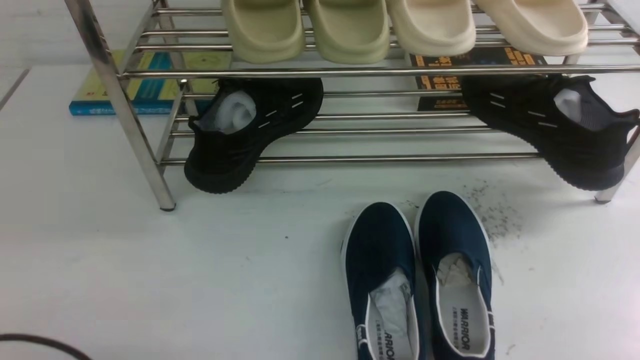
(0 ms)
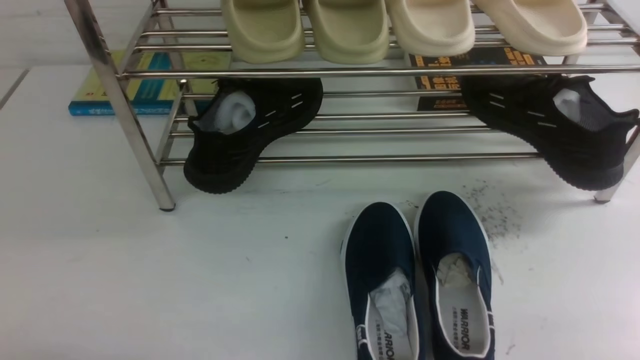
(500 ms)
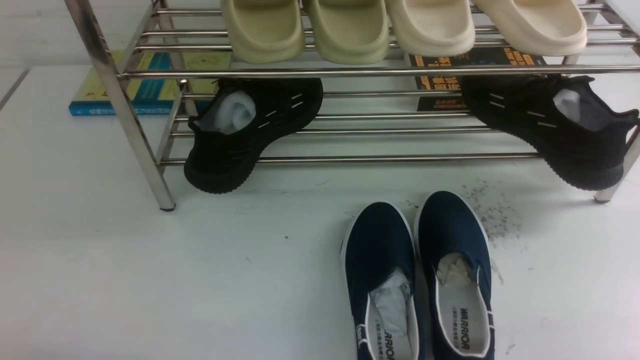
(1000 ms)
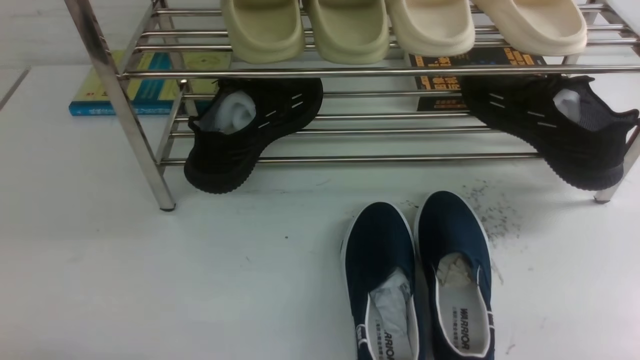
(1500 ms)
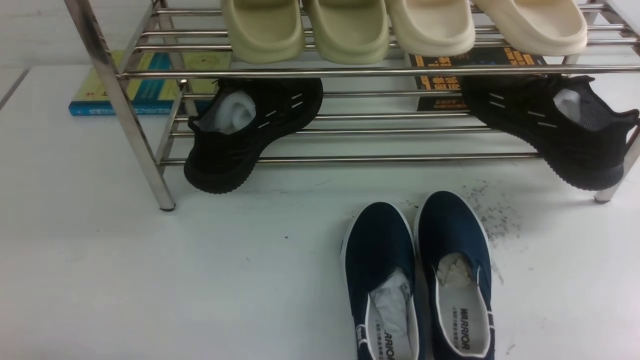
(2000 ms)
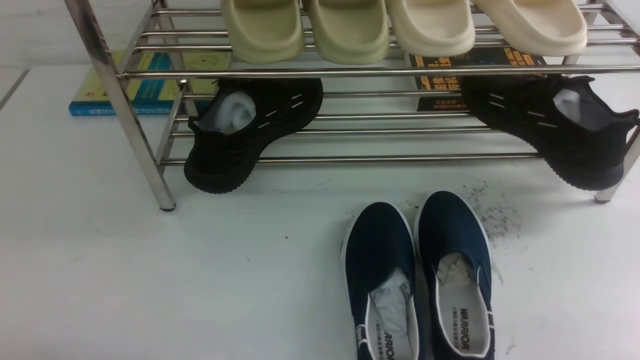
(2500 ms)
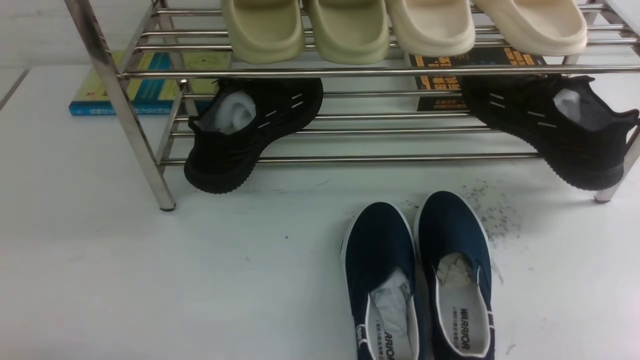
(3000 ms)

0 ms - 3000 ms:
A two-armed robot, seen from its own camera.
1500 ms - 3000 ms: The two grippers keep their place.

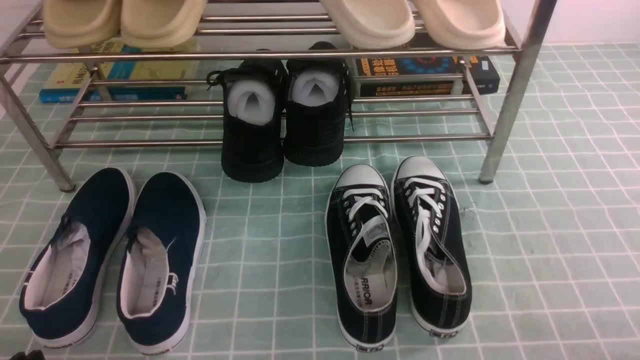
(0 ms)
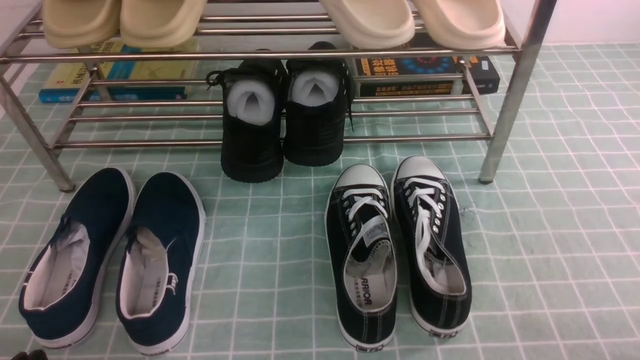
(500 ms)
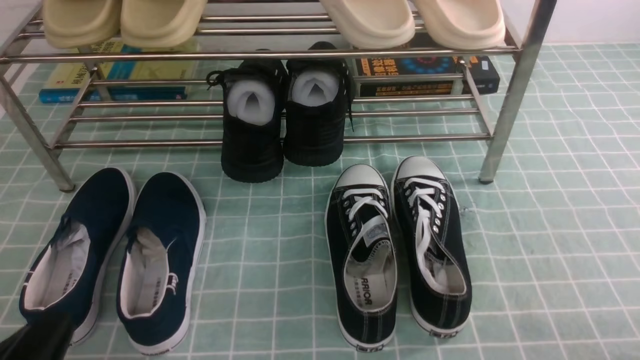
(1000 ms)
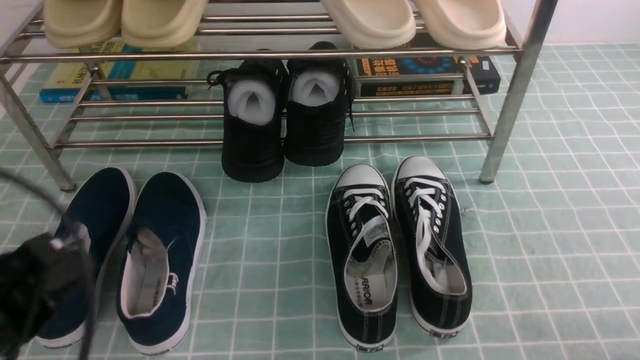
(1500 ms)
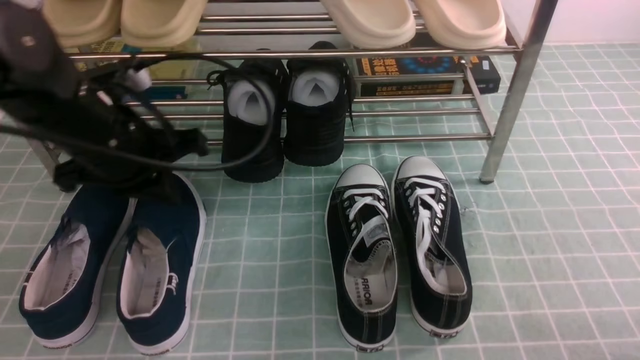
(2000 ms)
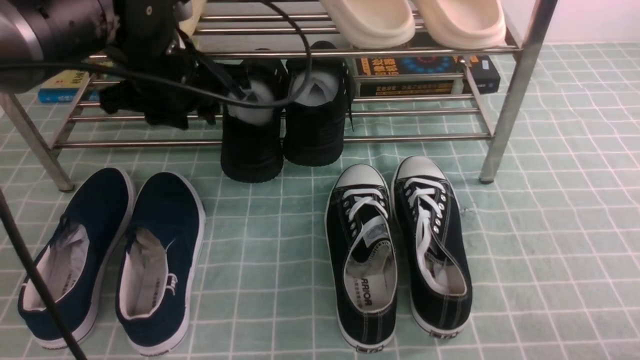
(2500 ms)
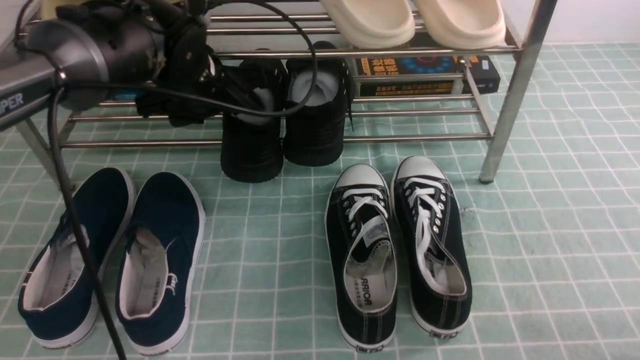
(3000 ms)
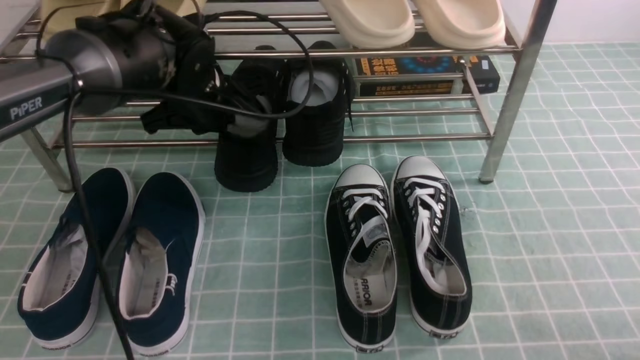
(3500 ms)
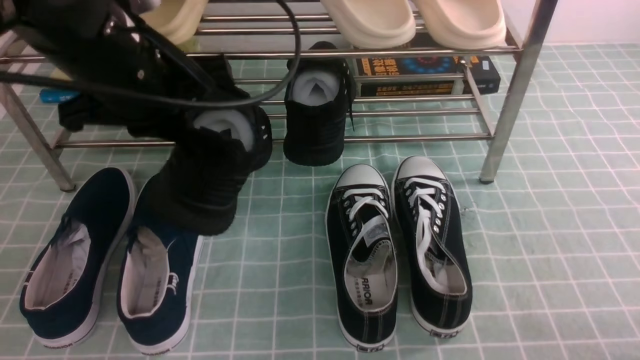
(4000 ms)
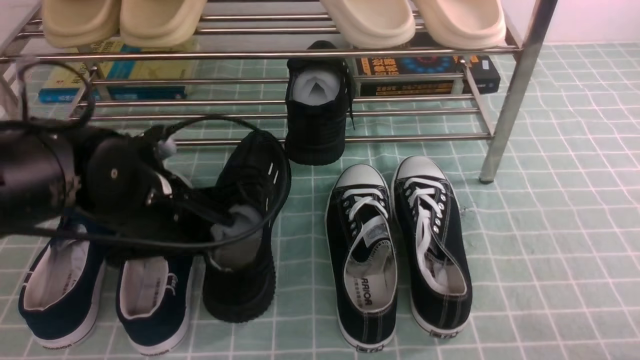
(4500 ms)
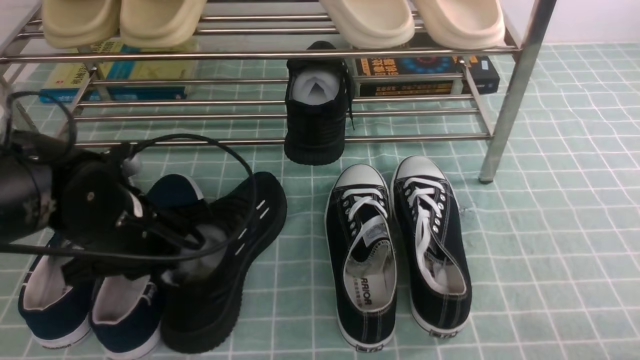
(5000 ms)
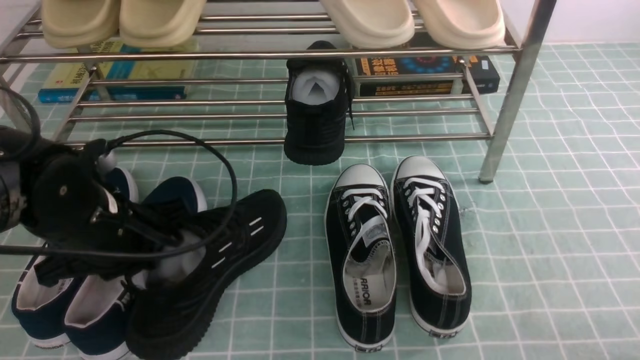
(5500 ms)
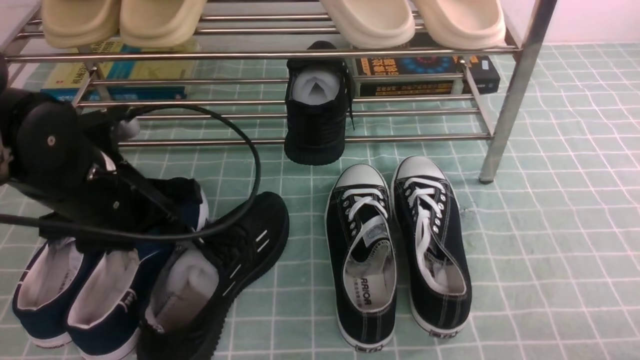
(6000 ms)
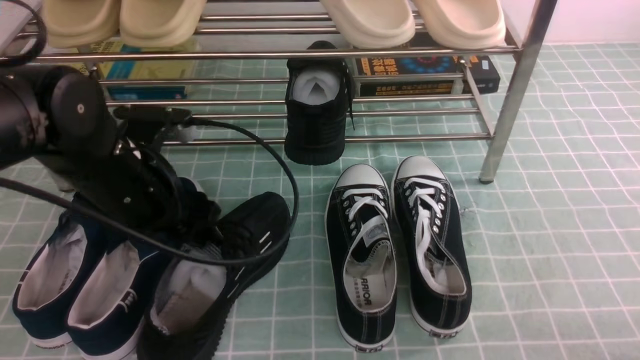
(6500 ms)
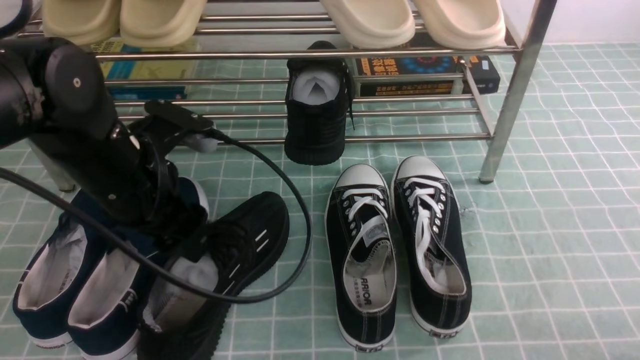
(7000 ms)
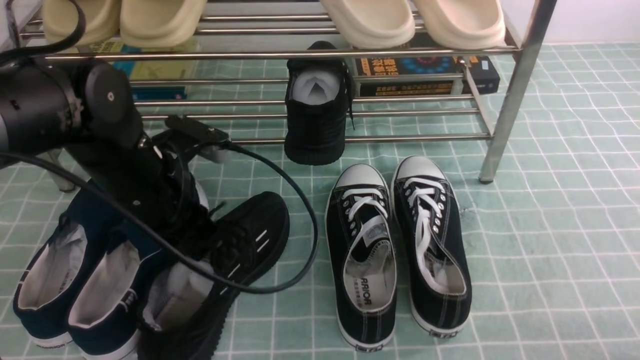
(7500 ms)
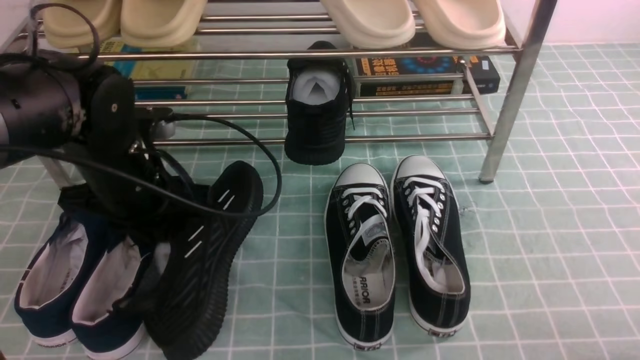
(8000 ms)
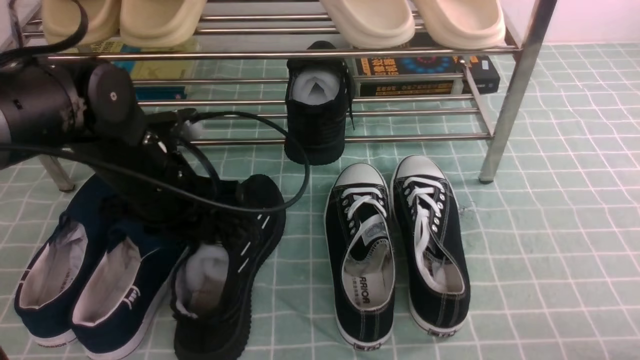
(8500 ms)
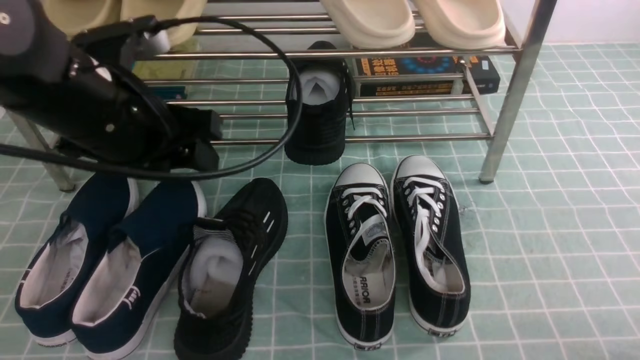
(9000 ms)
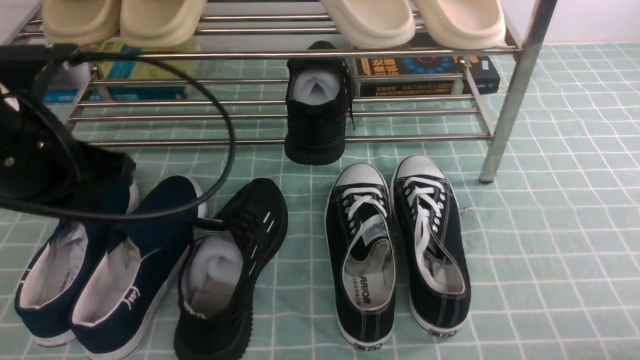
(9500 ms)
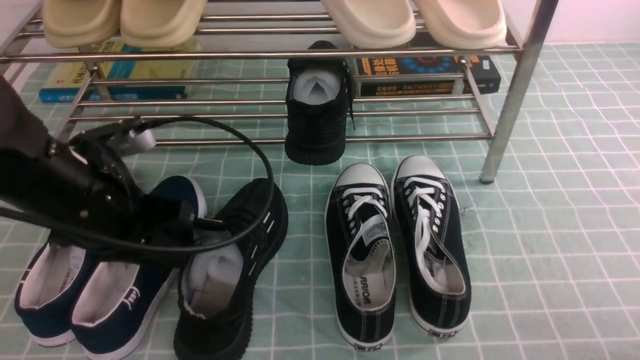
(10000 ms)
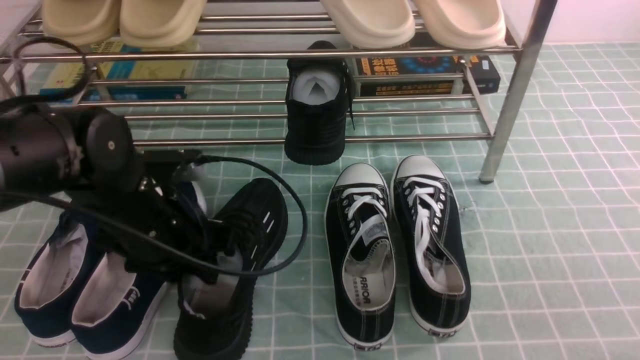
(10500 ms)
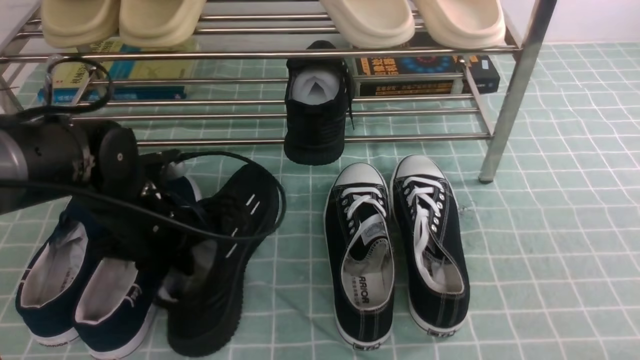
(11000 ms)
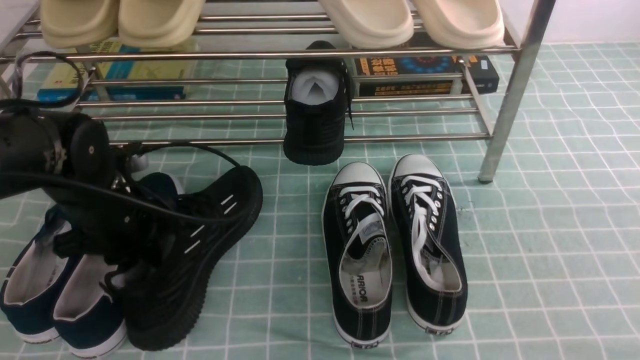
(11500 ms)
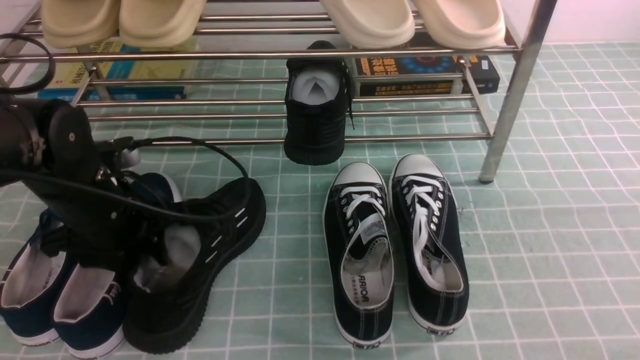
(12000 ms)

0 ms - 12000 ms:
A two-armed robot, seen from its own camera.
Step, 0 ms - 3500 ms: use the left arm to clamp a shoe in the middle of the shoe rack.
Step, 4000 ms - 5500 ms: Use your left arm to remove the clamped shoe from the shoe rack and put it down.
0 ms - 2000 ms: The left gripper goes roughly 30 cm forward and upward.
2000 ms - 4000 ms: The left gripper travels forward and back again, some 10 cm each way, and opens, then closes again.
4000 ms - 6000 ms: The left gripper travels downward by about 10 cm, and opens.
6000 ms - 8000 ms: The left gripper closes its fingers.
8000 ms - 10000 ms: The left gripper goes upward and returns, approximately 10 cm each way, and opens, then closes again.
10000 ms - 12000 ms: The right gripper shifts roughly 20 cm upward. Meanwhile the left gripper changes place by approximately 5 cm, and opens up.

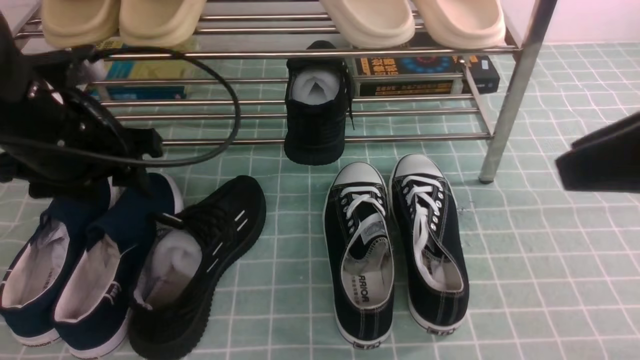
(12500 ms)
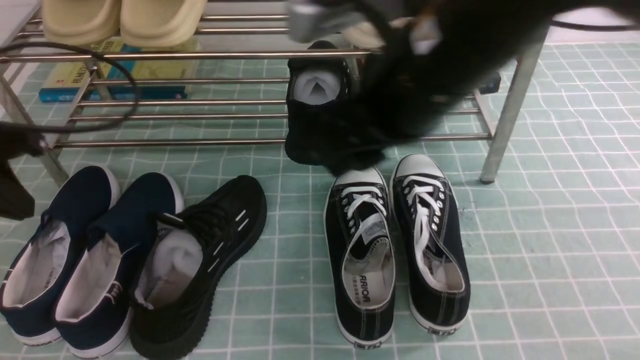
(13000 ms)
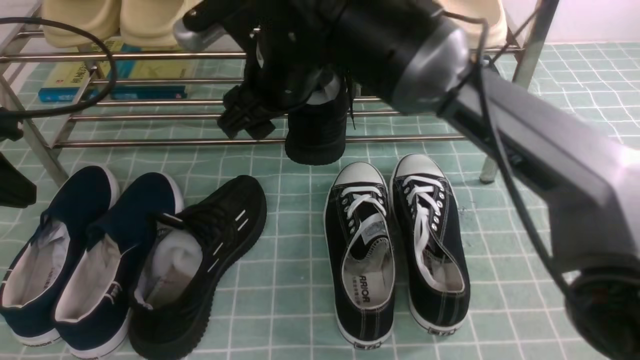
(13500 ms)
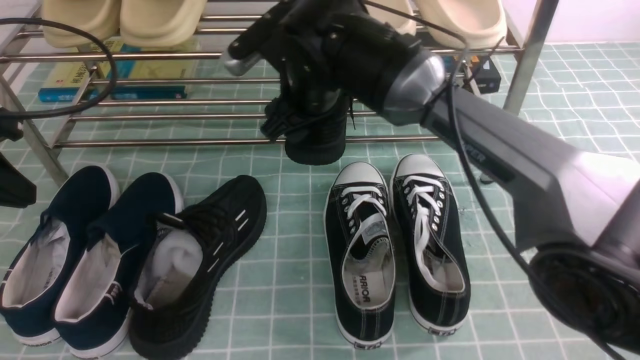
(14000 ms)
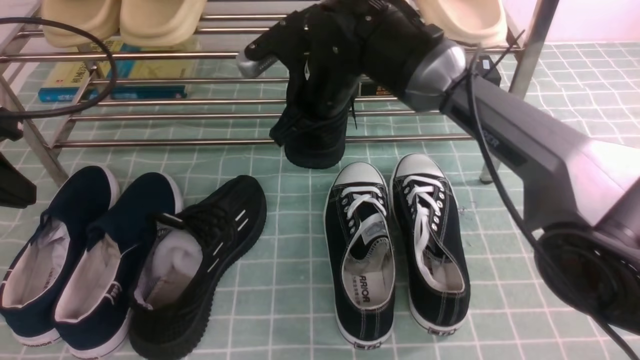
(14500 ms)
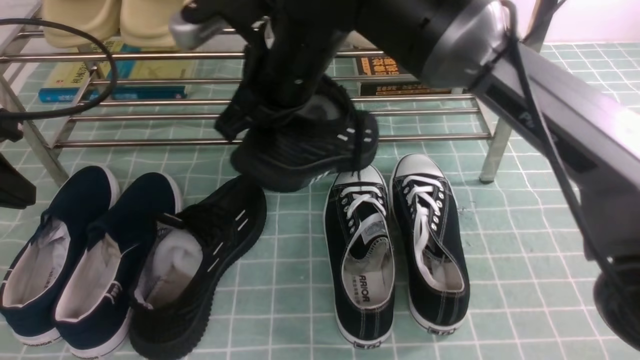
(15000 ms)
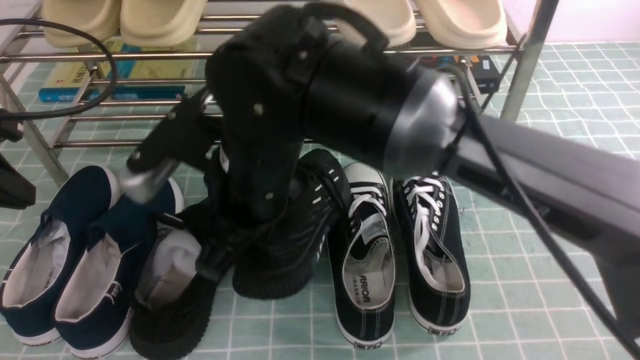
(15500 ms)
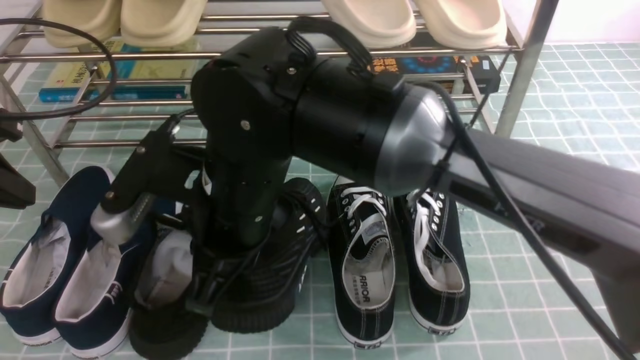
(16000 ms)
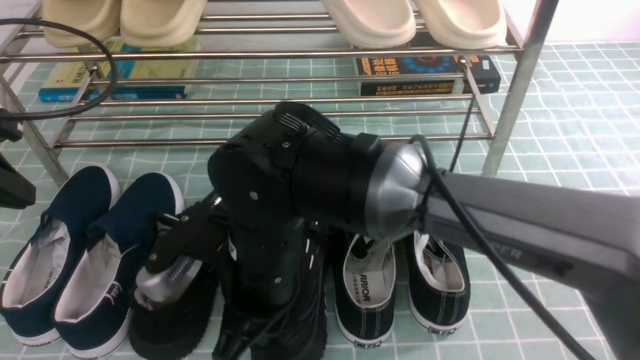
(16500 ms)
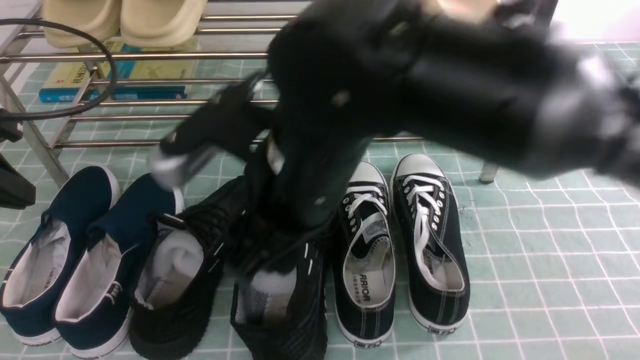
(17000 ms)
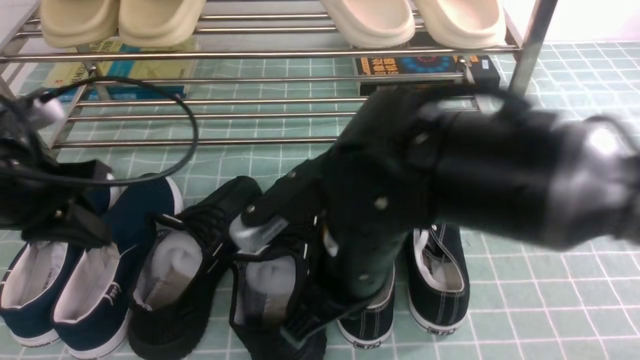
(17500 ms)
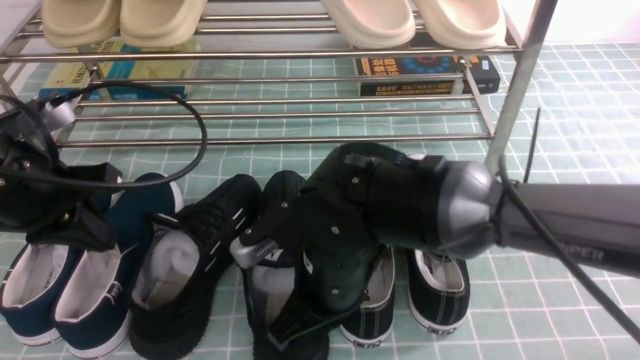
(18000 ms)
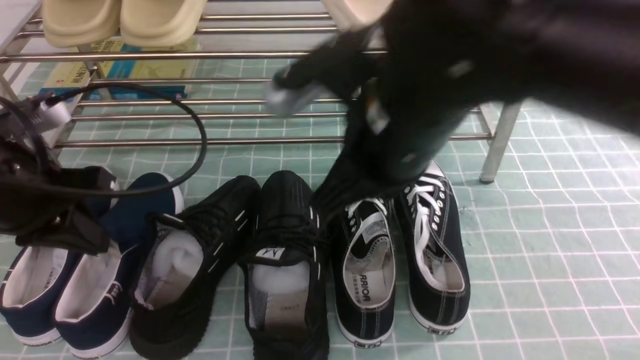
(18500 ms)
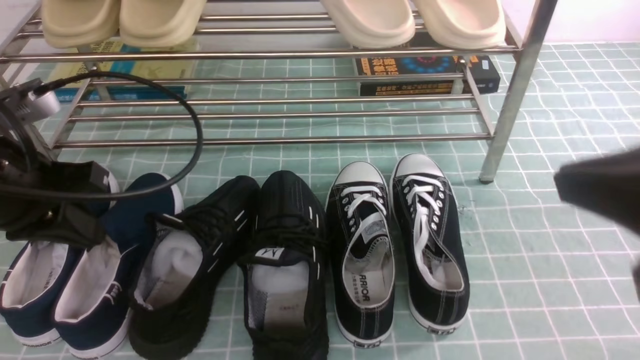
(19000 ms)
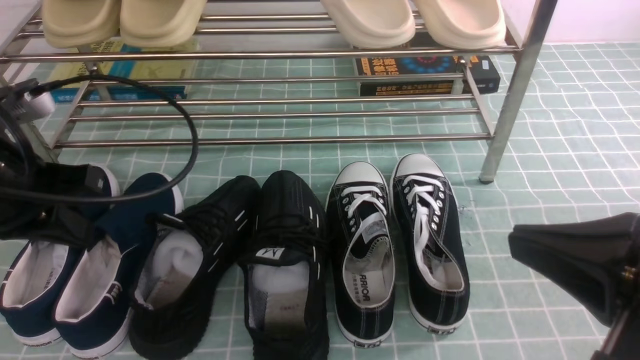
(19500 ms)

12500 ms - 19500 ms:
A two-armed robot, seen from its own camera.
Step, 12500 ms - 14500 ms: use the right arm to clamp a shoe in the middle of the shoe rack.
Step, 15000 ms - 17000 ms: use the right arm to take out the clamped shoe from the shoe rack and put it down.
12500 ms - 14500 ms: The left gripper shifts some 10 cm to the left, and closes up; the right gripper goes some 35 cm forward, to the left and downward, and opens, then closes once more.
14500 ms - 16000 ms: The right gripper moves backward and to the left, about 20 cm.
16000 ms - 17500 ms: The left gripper is displaced to the right by about 5 cm. Meanwhile the right gripper goes up and down, roughly 10 cm each way, reversing 2 times, and opens, then closes again.
17500 ms - 19500 ms: The right gripper moves to the right and backward, some 25 cm.
